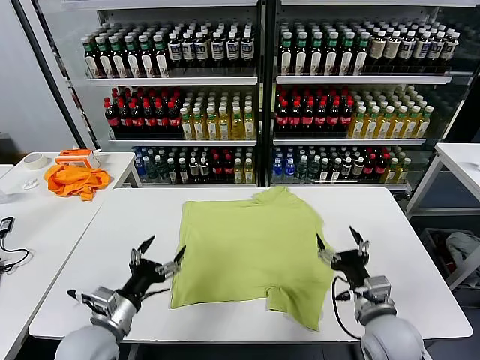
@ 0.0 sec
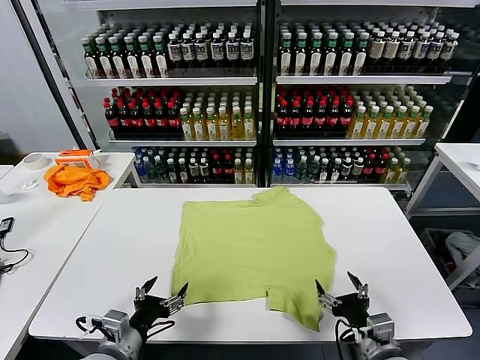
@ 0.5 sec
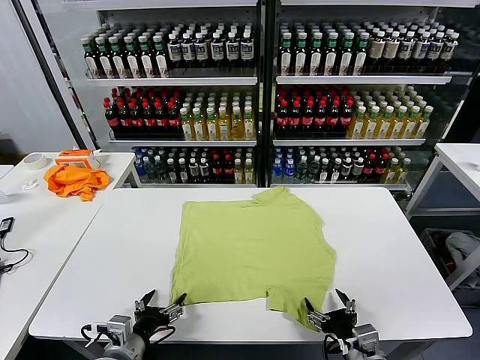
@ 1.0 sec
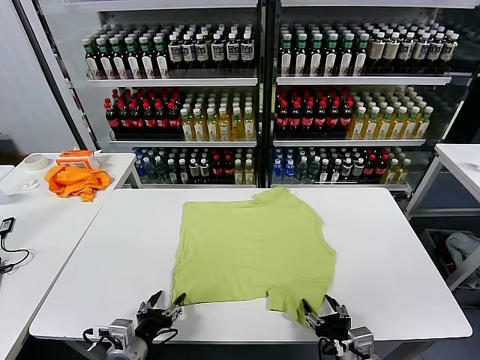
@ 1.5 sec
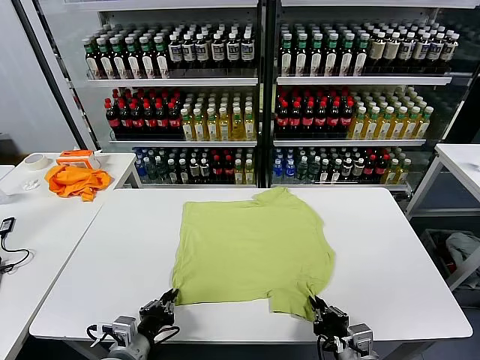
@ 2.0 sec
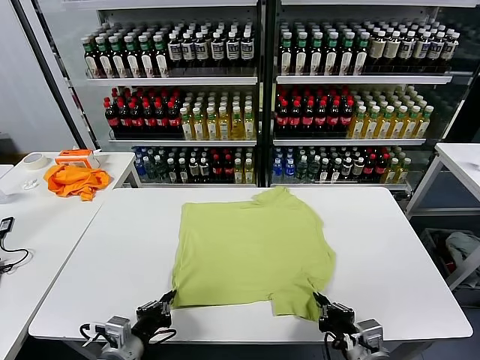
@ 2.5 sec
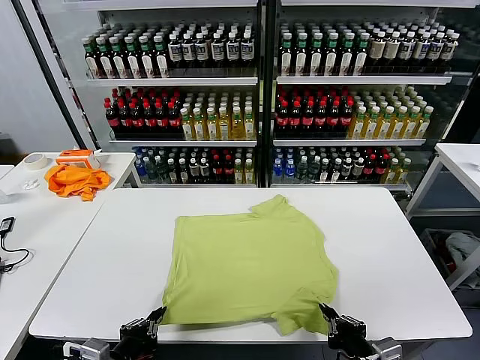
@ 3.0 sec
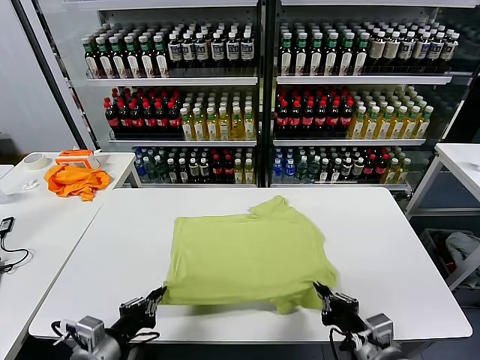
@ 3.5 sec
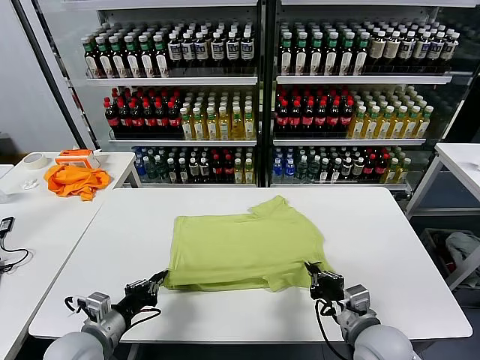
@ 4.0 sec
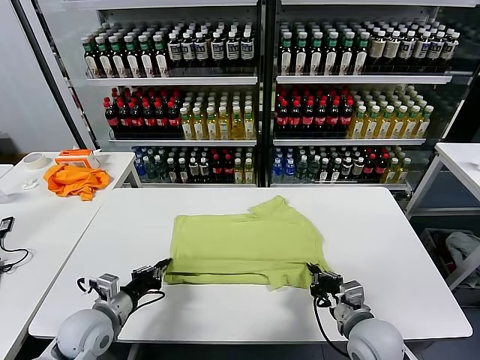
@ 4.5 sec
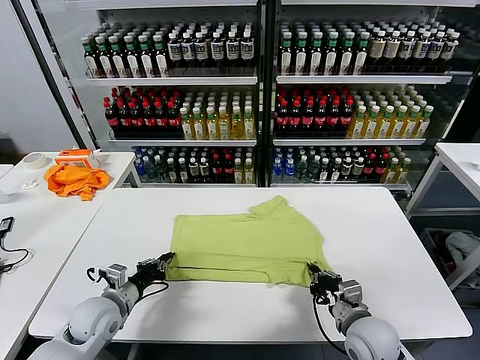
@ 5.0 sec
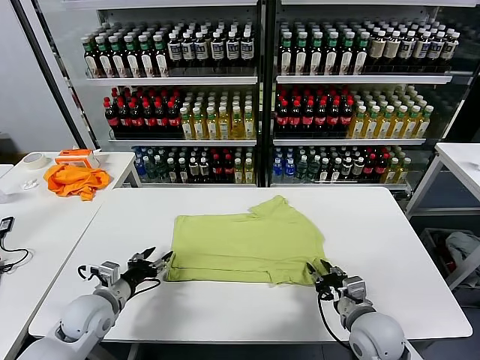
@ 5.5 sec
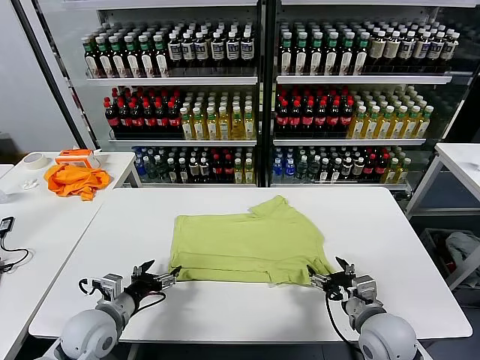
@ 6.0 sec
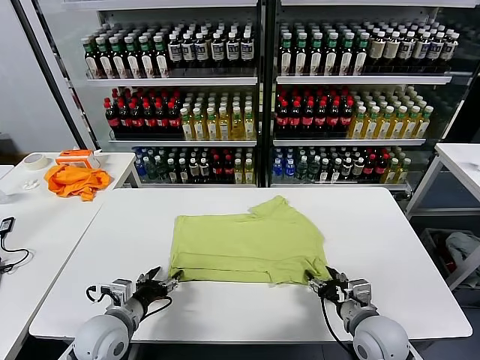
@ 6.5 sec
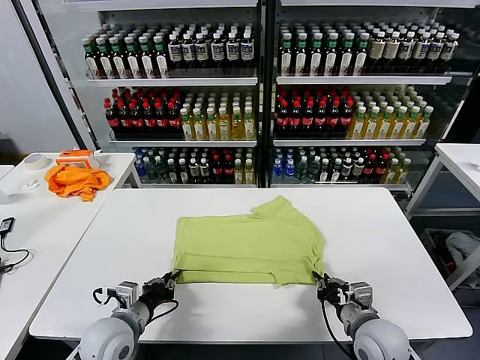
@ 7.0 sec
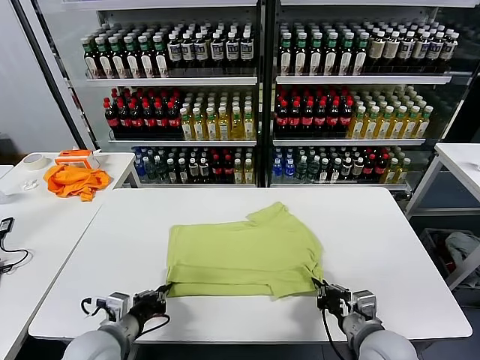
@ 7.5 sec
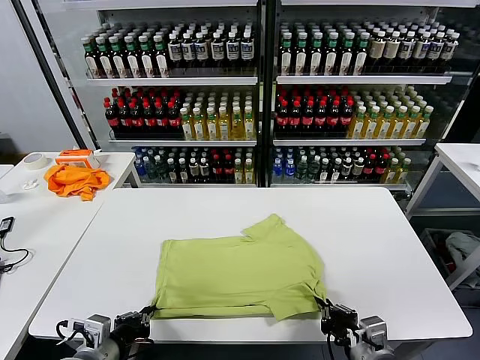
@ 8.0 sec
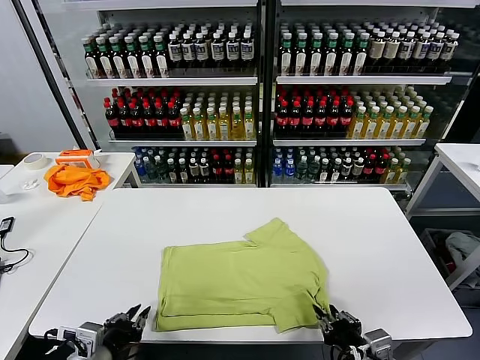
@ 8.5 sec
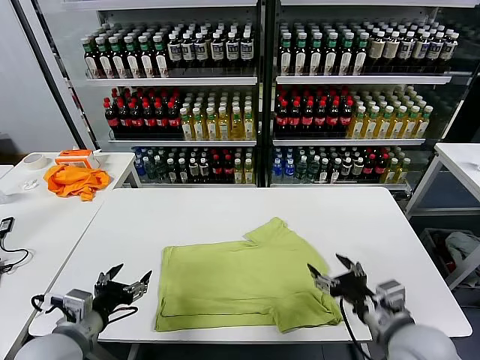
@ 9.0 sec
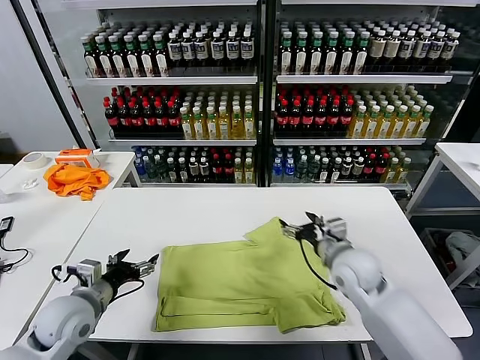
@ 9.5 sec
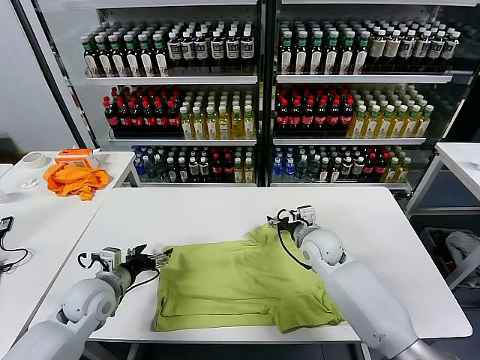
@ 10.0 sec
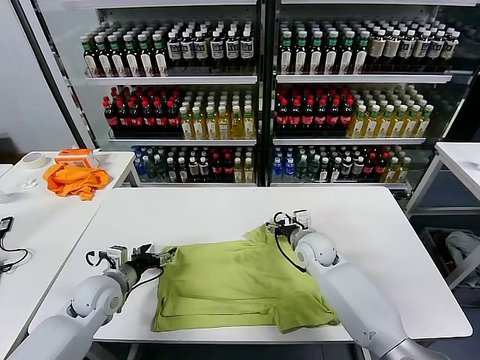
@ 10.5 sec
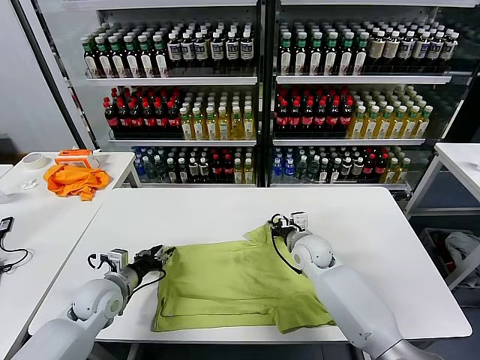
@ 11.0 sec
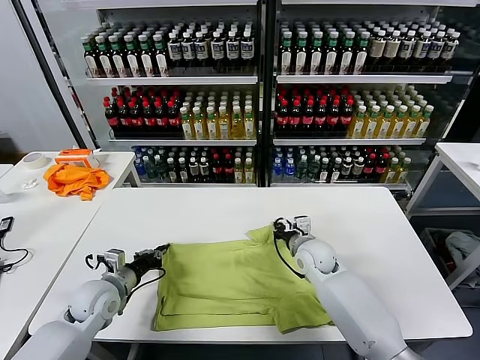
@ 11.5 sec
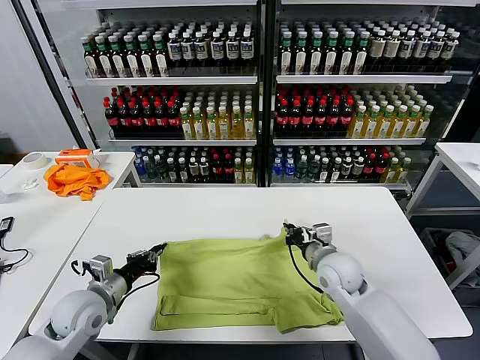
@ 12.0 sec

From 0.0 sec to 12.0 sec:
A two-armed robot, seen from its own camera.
Task of the whole recording: fold and organize the clothes.
Step, from 0.0 sec to 2.0 sec: use both grippers simultaneously to clamp the lower edge of the clothing fabric.
Step, from 2.5 sec to 5.5 sec: use both grippers to drag the lower edge of the fabric forward and fold it over the upper edge.
Step, from 6.0 sec to 8.5 sec: Drag the clothes downward with both gripper.
Step, from 9.0 sec to 11.0 sec: use both grippers simultaneously to clamp the upper edge of the clothing fabric.
From 2.0 sec to 4.0 sec: The right gripper travels forward by some 5 cm. Meanwhile the left gripper travels to the left by roughly 5 cm.
From 4.0 sec to 6.0 sec: The right gripper opens up. The left gripper opens.
From 6.0 sec to 8.0 sec: Both grippers travel together backward, roughly 10 cm. The right gripper closes. The left gripper closes.
From 8.0 sec to 10.0 sec: The left gripper heads forward, covering some 15 cm, and opens up. Meanwhile the right gripper shifts about 30 cm forward, and opens.
From 10.0 sec to 12.0 sec: The left gripper closes. The right gripper goes some 10 cm backward, and closes up.

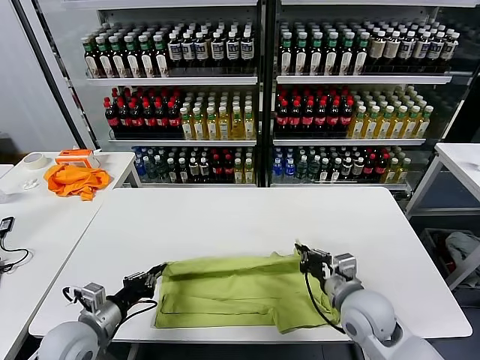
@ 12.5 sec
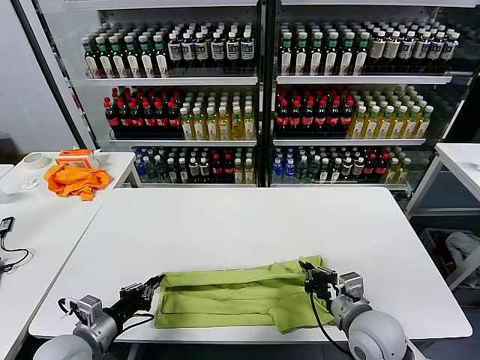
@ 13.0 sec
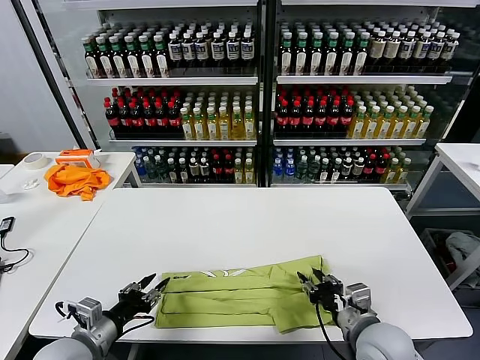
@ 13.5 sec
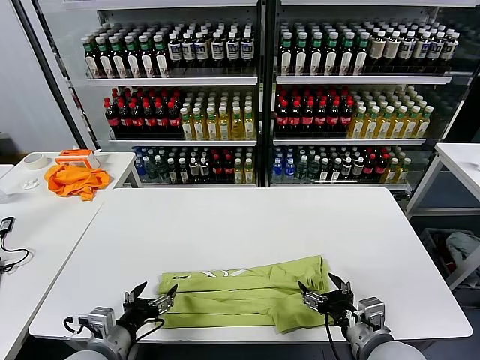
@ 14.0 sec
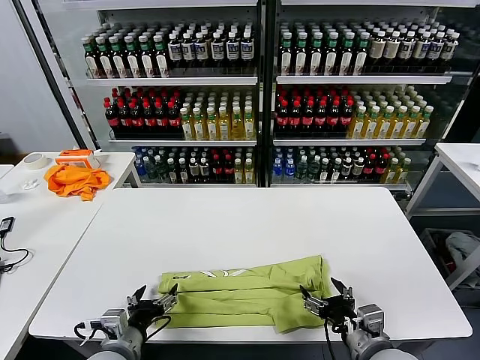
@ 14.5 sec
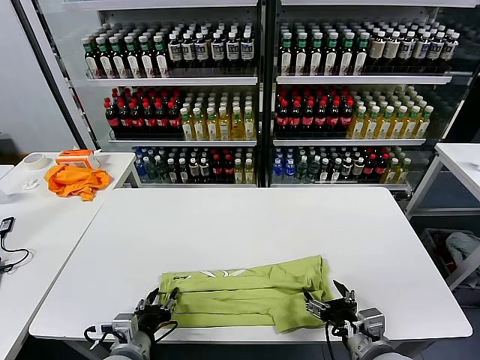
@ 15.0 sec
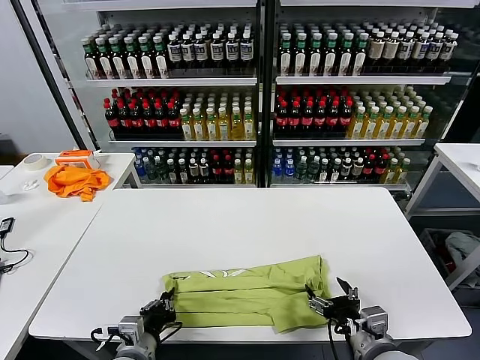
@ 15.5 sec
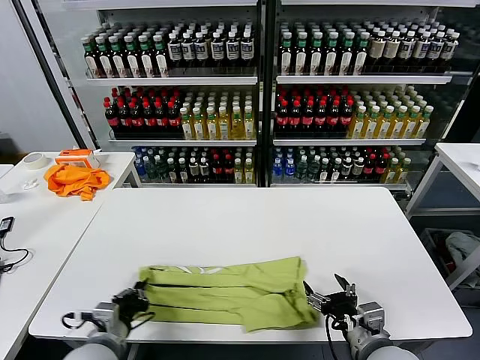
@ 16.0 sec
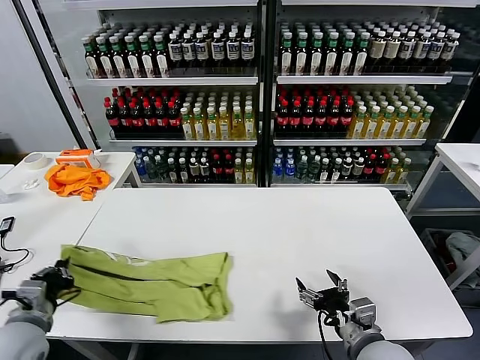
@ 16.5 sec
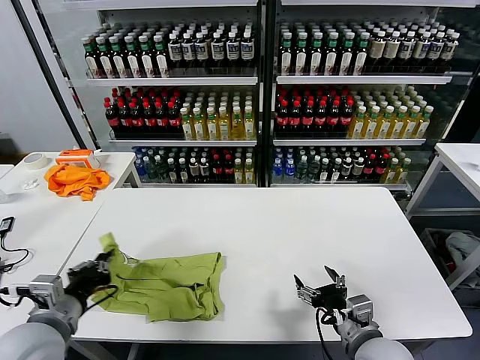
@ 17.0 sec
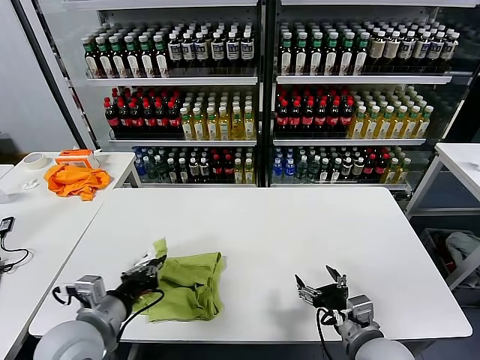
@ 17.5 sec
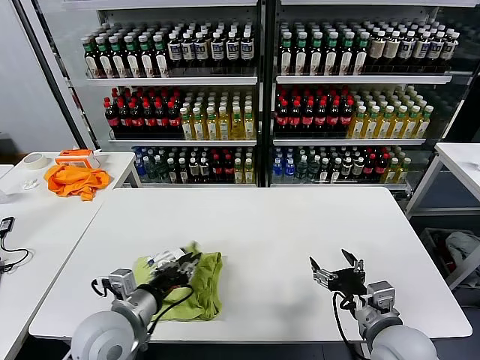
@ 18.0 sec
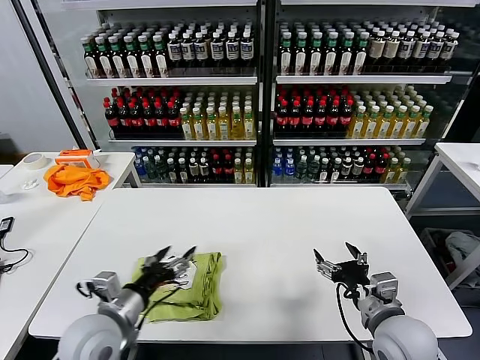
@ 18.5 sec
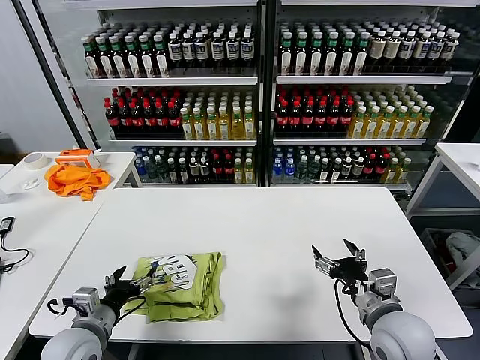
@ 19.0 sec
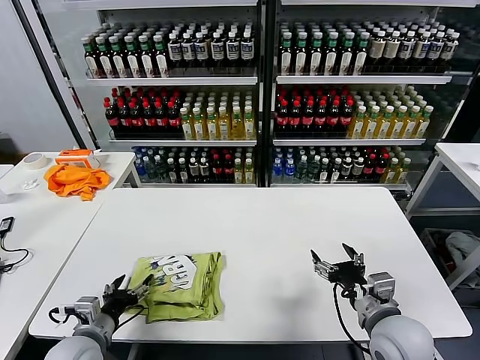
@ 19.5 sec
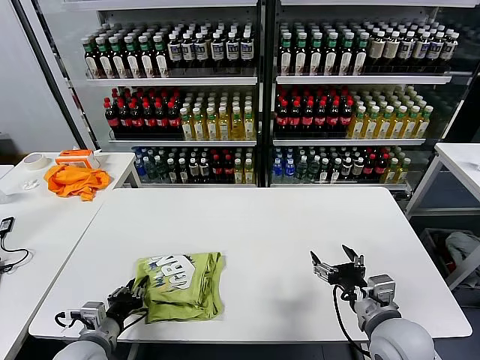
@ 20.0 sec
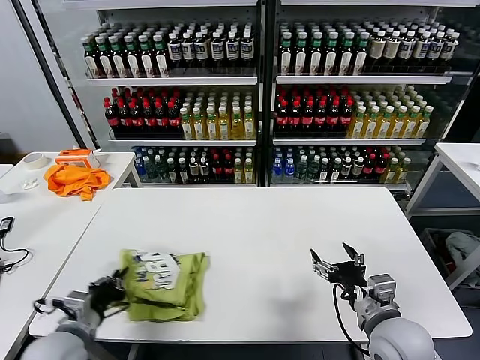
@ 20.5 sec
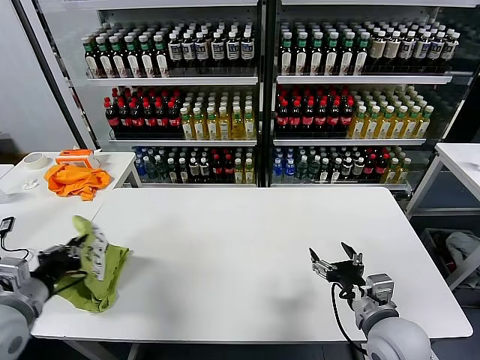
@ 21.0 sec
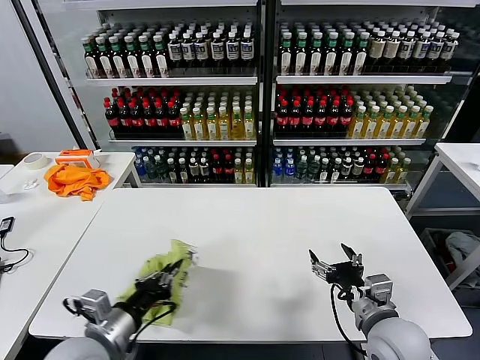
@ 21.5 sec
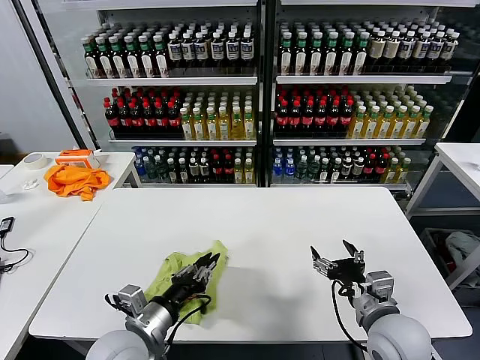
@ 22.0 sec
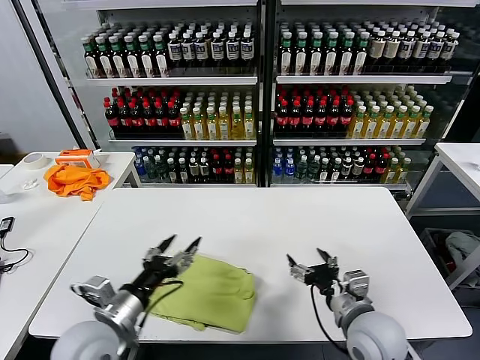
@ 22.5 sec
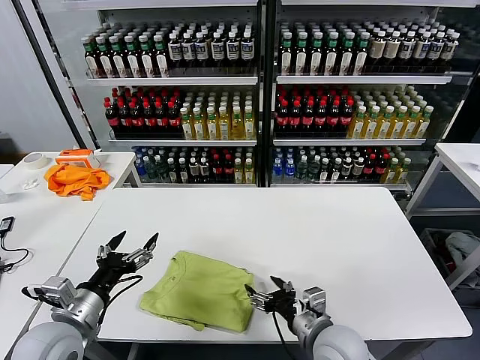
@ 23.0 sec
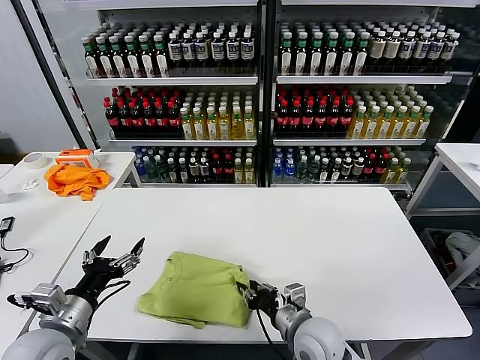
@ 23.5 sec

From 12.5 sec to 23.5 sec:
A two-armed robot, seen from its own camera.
Task of the whole recording: fold and organize the clothes.
Step, from 12.5 sec to 13.5 sec: use both grippers to drag the upper edge of the fabric backward and fold it over the lower edge.
Step, from 14.0 sec to 15.5 sec: use the left gripper to clamp the left edge of the fabric.
Step, from 16.0 sec to 18.0 sec: use the left gripper to drag the left edge of the fabric to the left and folds it over the right edge.
Step, from 18.5 sec to 22.0 sec: Flip the folded clothes over with left gripper.
From 12.5 sec to 14.5 sec: The right gripper moves backward, some 10 cm, and opens up, while the left gripper goes approximately 10 cm to the right, and opens its fingers.
From 14.5 sec to 16.0 sec: The left gripper closes up.
From 16.0 sec to 18.0 sec: The left gripper moves upward, roughly 5 cm, and travels to the left and back again, approximately 10 cm each way.
From 18.0 sec to 20.0 sec: The left gripper shifts some 15 cm downward and to the left, and opens, then closes again.
From 20.0 sec to 21.5 sec: The left gripper goes about 15 cm upward and to the right.
From 21.5 sec to 23.5 sec: The right gripper heads to the left and downward, covering about 15 cm, and closes up; the left gripper is displaced to the left by some 5 cm, and opens.

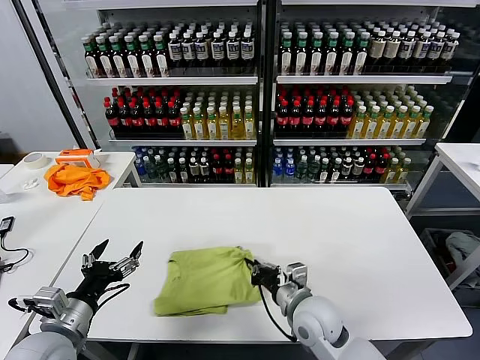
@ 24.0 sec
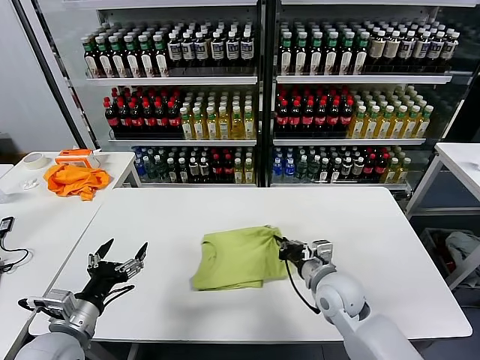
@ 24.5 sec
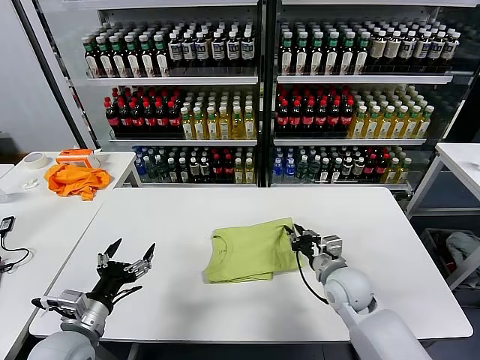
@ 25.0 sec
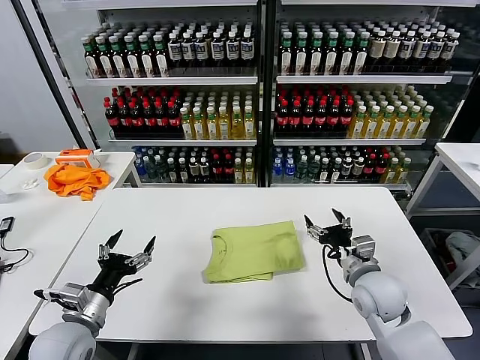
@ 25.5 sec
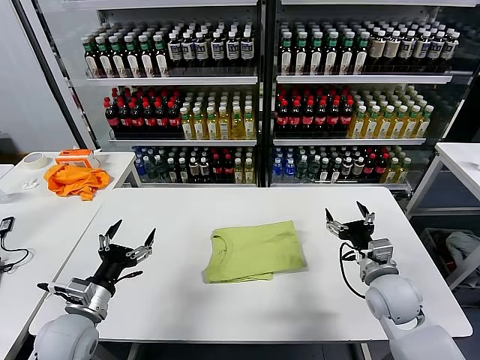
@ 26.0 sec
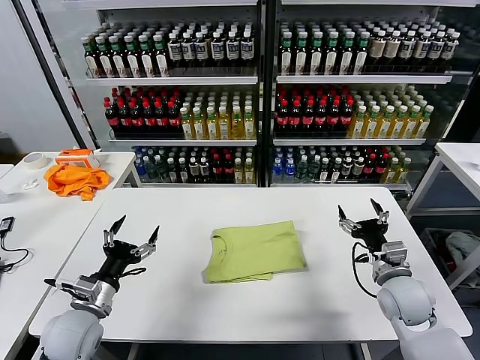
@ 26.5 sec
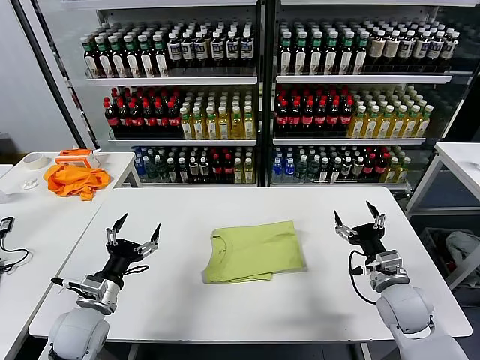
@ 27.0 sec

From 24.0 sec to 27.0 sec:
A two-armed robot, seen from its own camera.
Task of the whole recording: fold and organize the clothes.
From 24.0 sec to 25.5 sec: The right gripper heads to the right, covering approximately 15 cm, and opens up.
From 25.5 sec to 27.0 sec: The right gripper is displaced to the right by about 5 cm.
